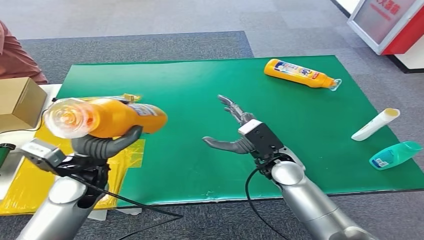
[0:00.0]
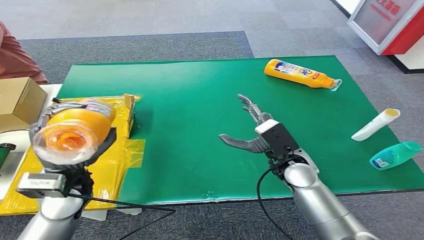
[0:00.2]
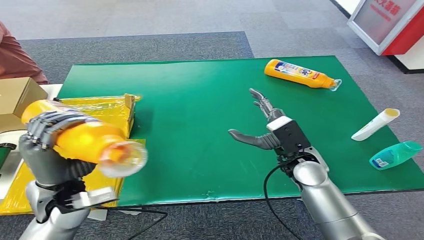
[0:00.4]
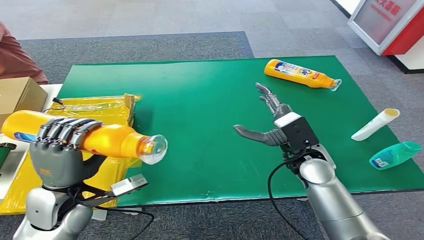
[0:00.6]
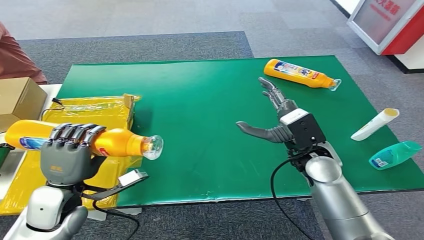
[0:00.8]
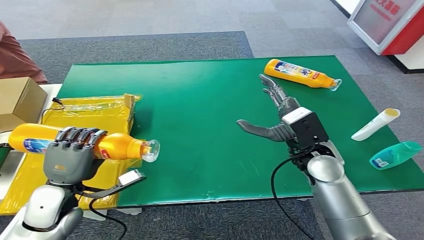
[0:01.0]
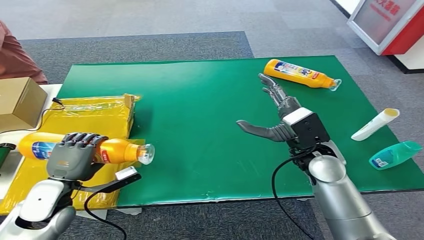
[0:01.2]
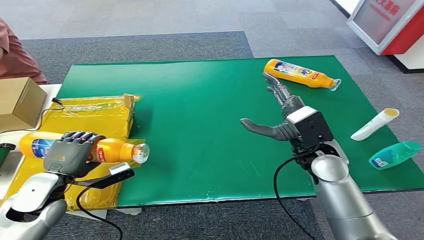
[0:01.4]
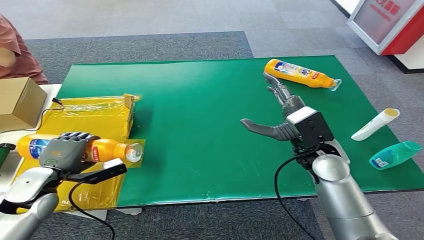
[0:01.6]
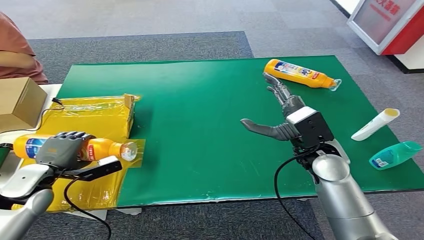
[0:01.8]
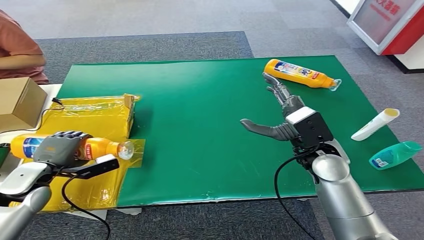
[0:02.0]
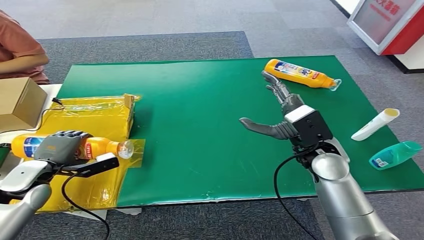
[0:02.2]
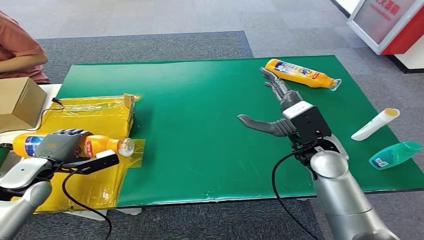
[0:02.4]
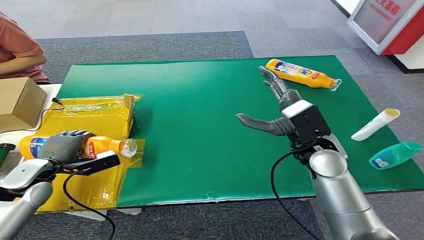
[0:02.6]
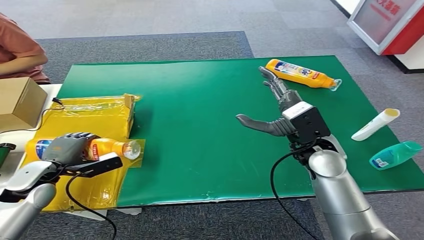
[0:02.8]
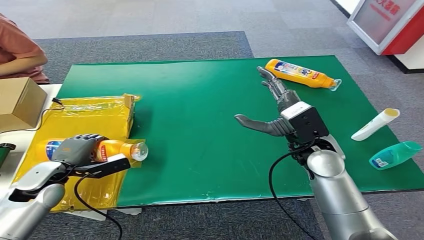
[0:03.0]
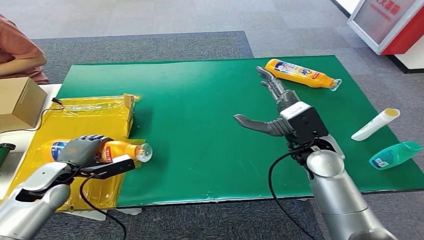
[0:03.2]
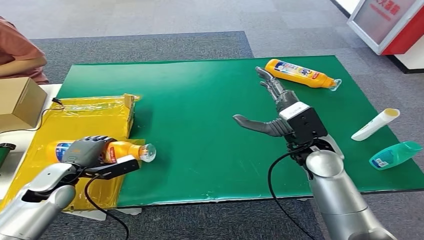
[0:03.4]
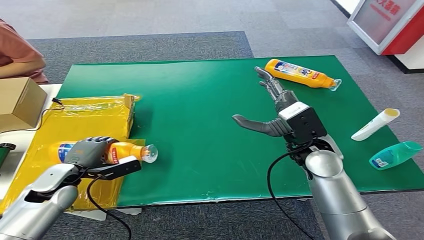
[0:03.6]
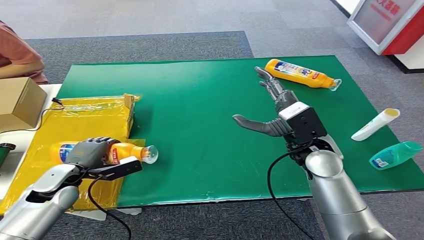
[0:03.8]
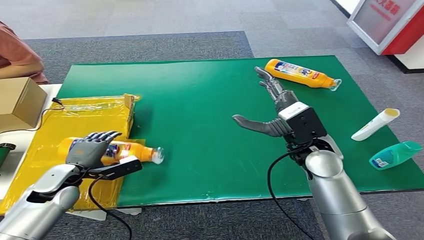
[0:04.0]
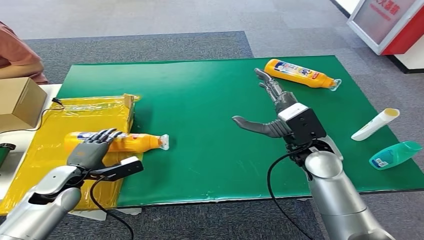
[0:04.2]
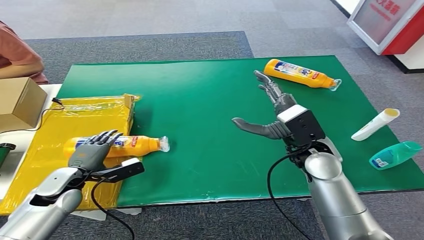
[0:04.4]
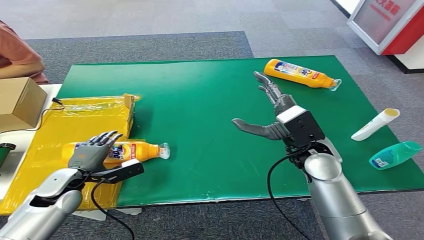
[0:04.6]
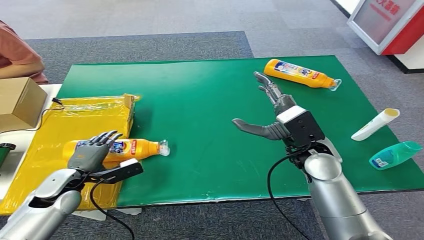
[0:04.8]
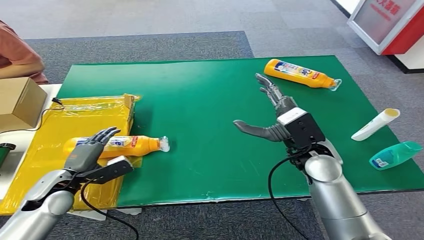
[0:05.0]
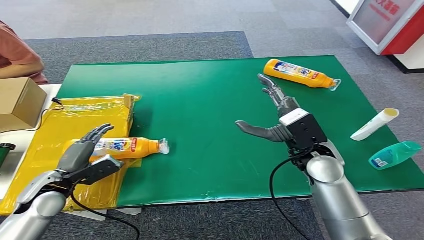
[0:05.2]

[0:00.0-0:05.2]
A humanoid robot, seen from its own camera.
Step, 0:00.0 to 0:05.2: Turn the bottle to the front side.
0:01.8 to 0:03.4: The hands move only a little.

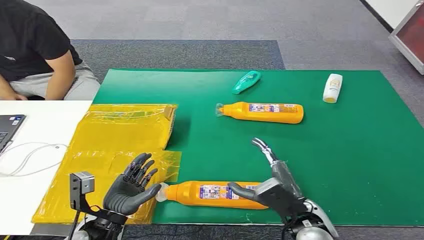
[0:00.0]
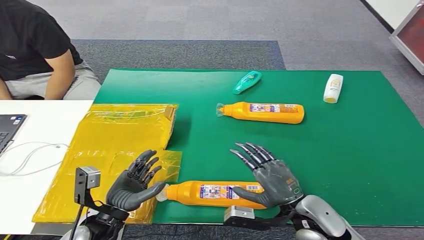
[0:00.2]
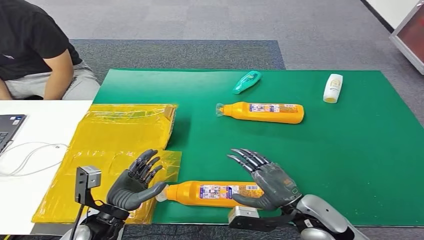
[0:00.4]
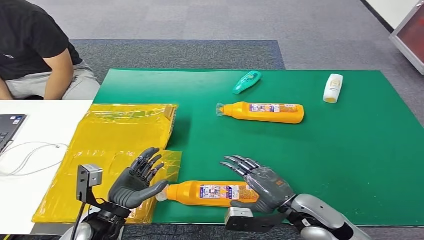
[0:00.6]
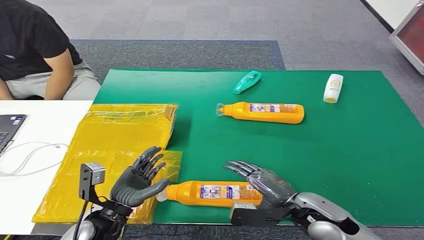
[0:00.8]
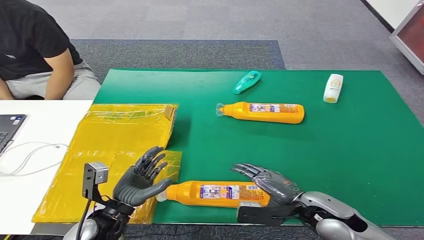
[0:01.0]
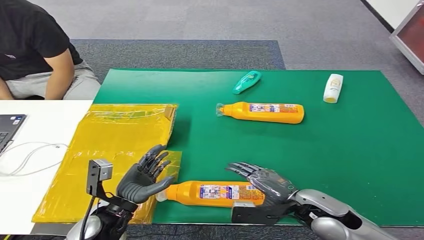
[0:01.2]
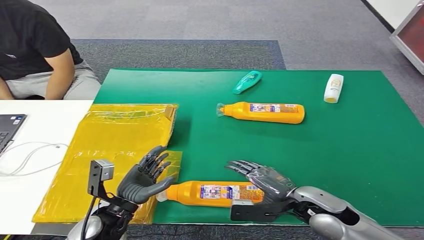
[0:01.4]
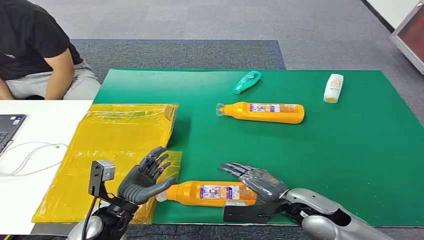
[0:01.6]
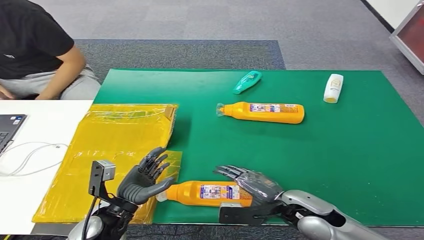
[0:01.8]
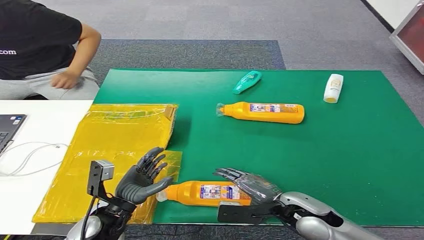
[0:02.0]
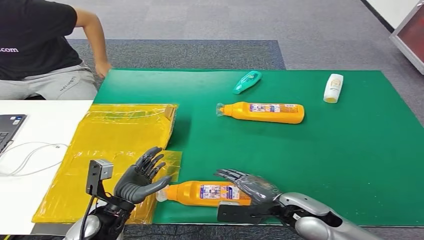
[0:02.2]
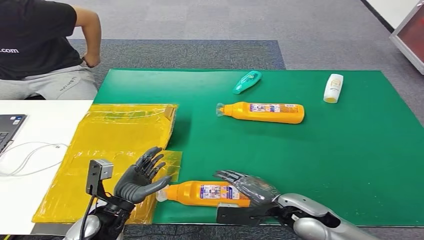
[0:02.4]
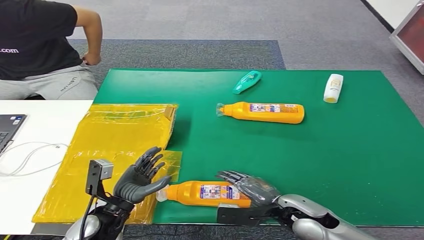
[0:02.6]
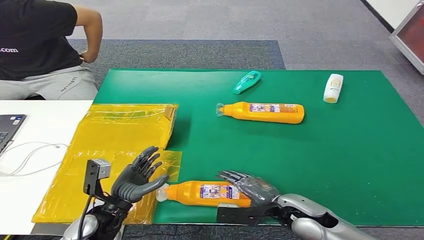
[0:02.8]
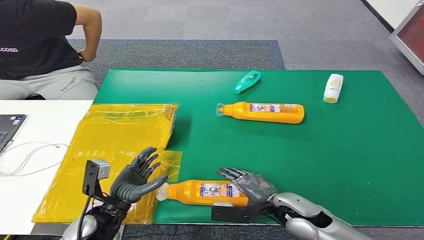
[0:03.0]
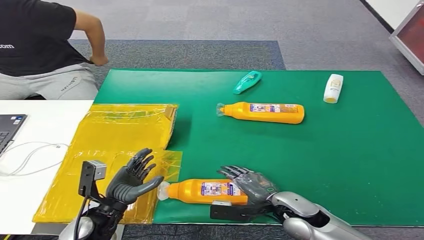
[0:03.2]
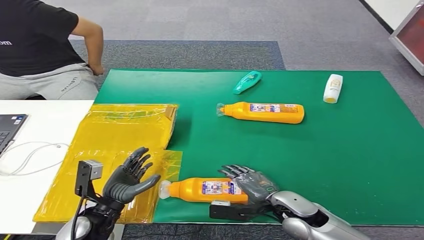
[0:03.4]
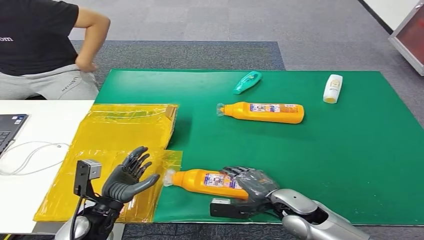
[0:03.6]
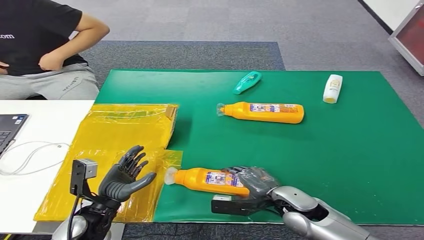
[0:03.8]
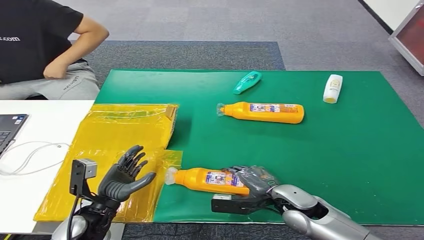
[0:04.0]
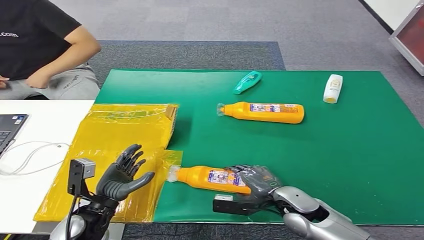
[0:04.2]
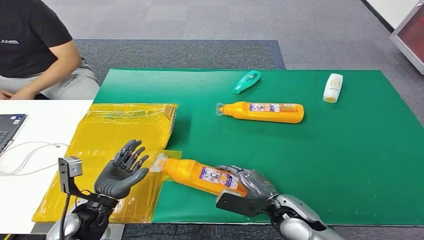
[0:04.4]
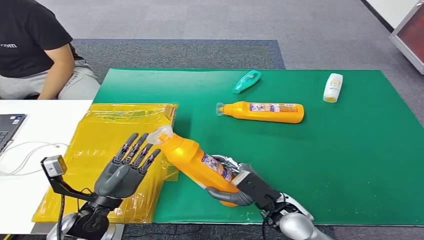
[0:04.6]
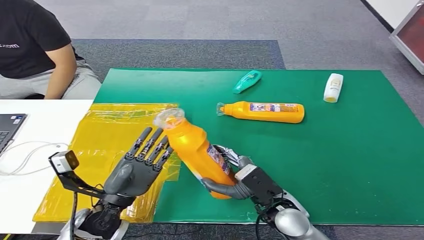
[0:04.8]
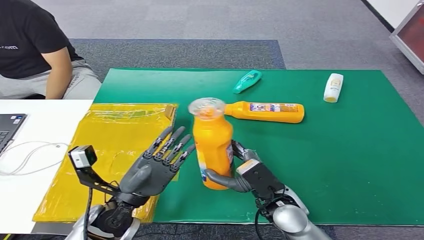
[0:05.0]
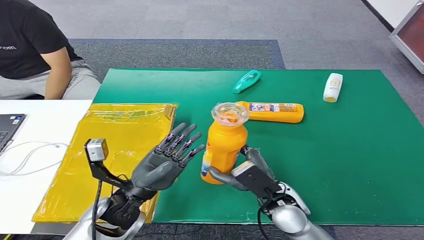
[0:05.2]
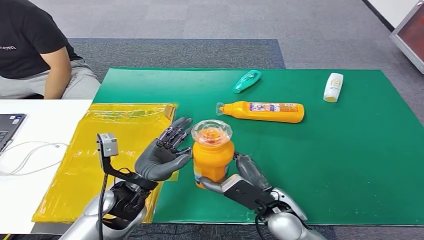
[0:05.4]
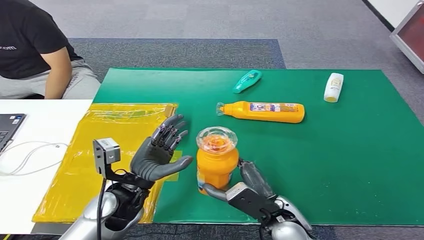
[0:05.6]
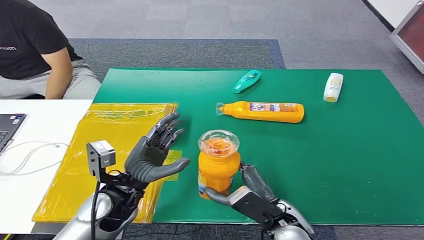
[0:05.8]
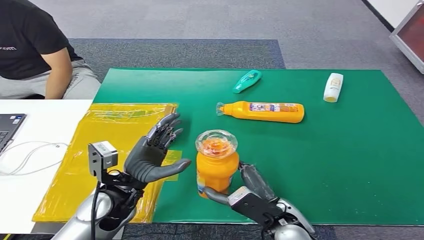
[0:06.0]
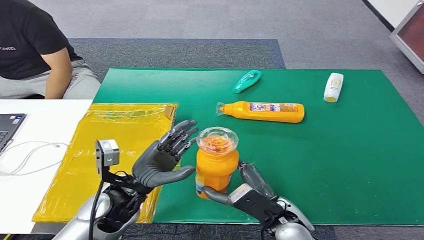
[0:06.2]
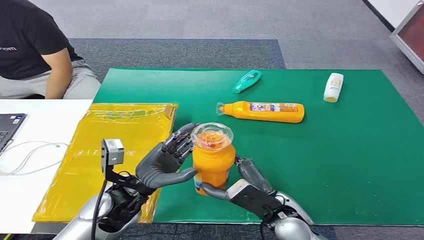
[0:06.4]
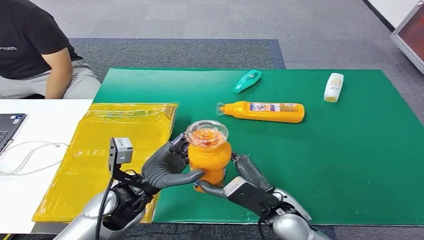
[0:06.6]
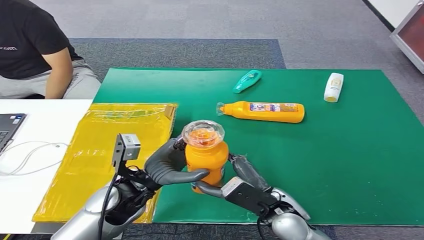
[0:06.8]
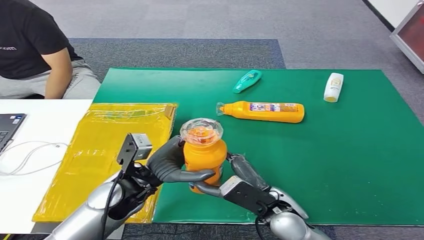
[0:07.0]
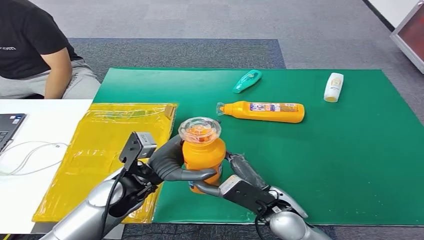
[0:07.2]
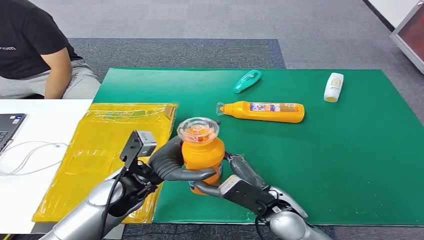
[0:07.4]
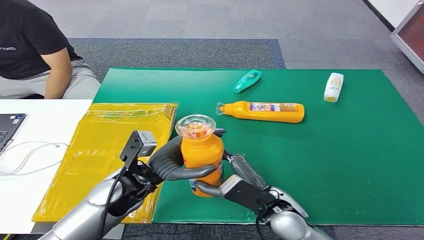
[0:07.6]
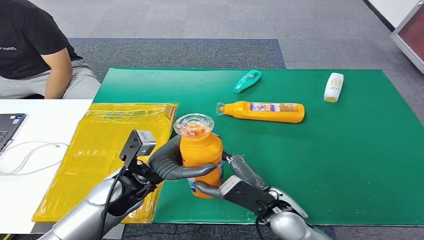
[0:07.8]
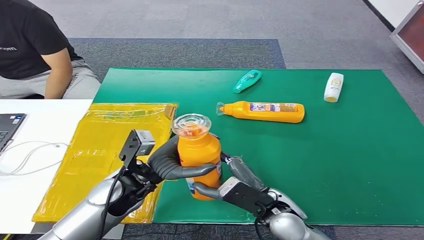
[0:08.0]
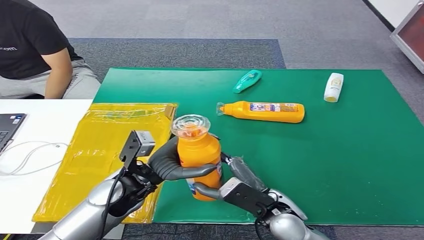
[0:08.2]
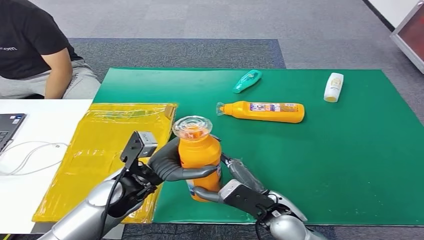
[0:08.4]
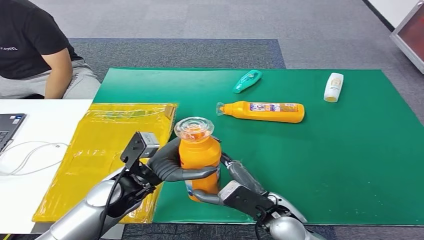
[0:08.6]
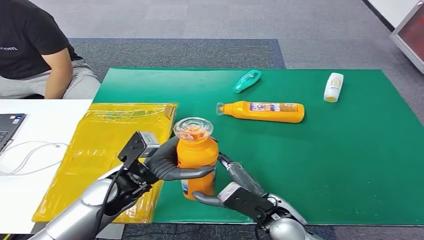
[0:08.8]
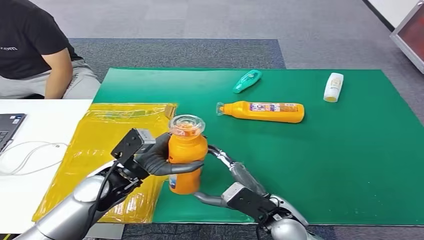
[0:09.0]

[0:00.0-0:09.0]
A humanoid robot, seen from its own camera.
Step, 0:00.0 to 0:05.0: Pick up the bottle from the table.
Step, 0:05.2 to 0:08.8: Turn the bottle to the front side.
0:01.6 to 0:03.0: There are only small adjustments of the hands.
0:04.4 to 0:06.0: The right hand changes place by roughly 5 cm. Meanwhile the left hand shifts about 10 cm to the right, upward and forward.
0:06.0 to 0:07.6: The hands move only a little.
0:07.6 to 0:09.0: The hands make only small movements.
